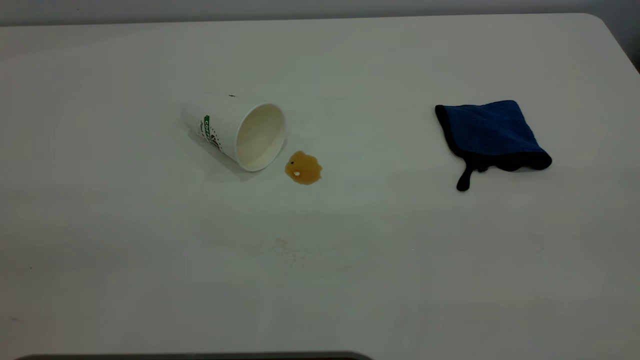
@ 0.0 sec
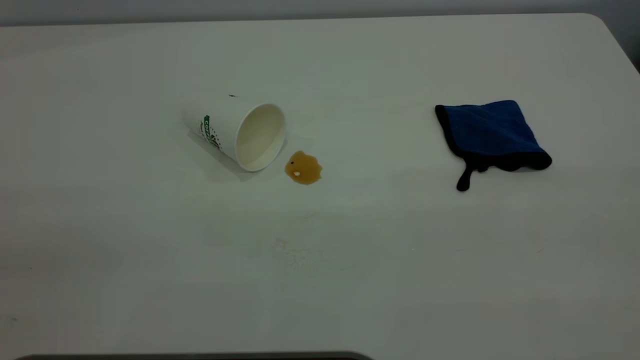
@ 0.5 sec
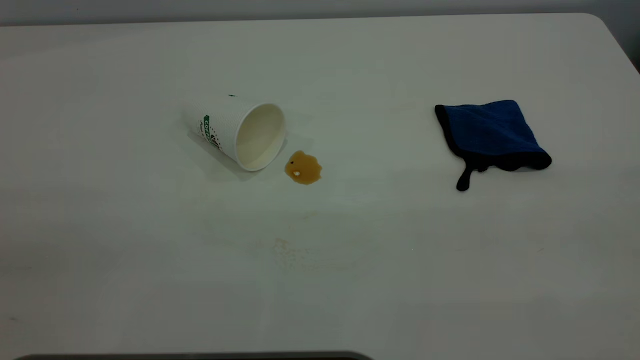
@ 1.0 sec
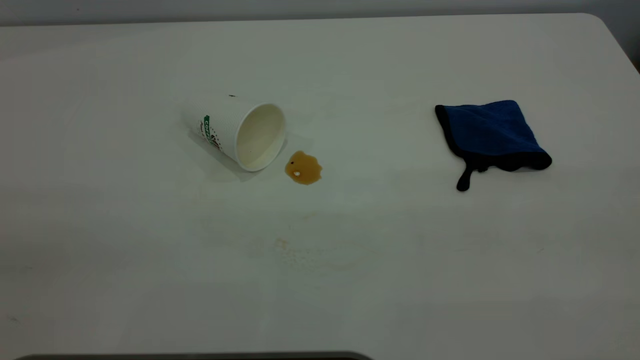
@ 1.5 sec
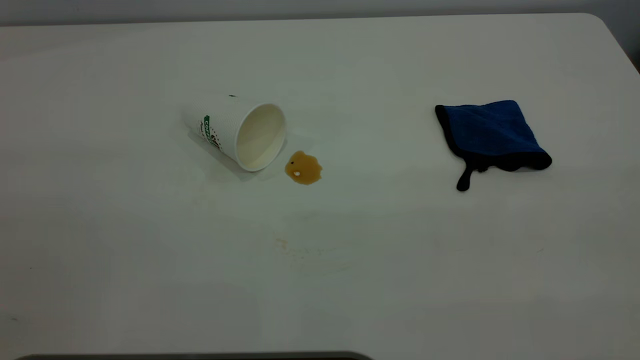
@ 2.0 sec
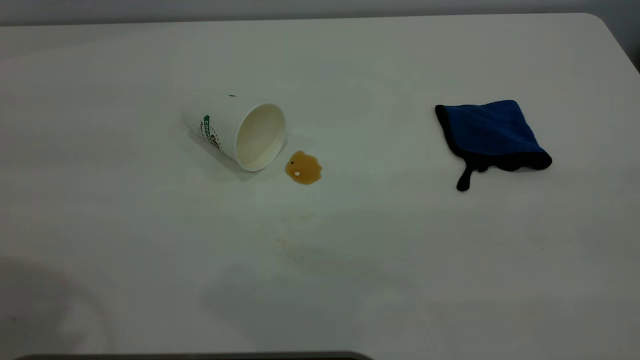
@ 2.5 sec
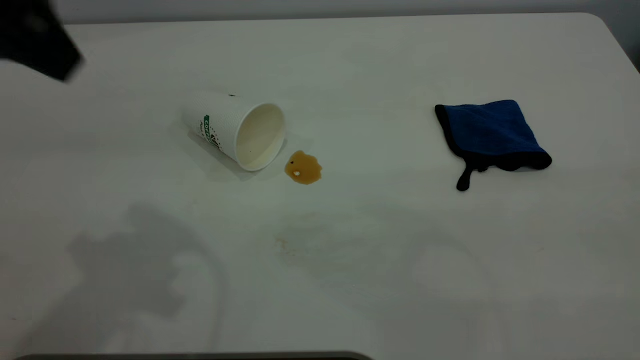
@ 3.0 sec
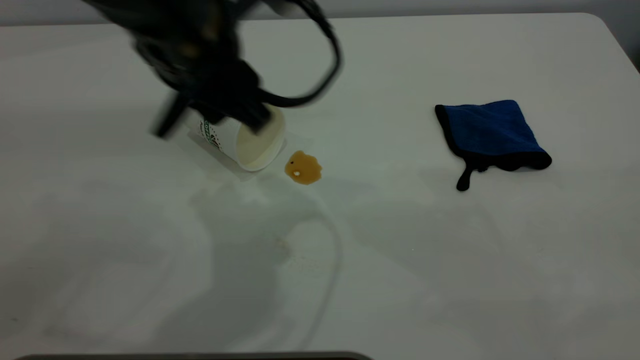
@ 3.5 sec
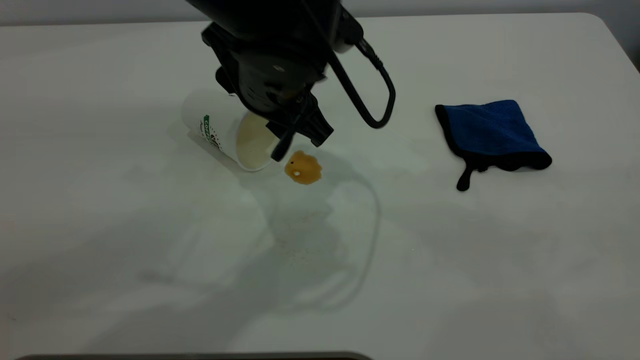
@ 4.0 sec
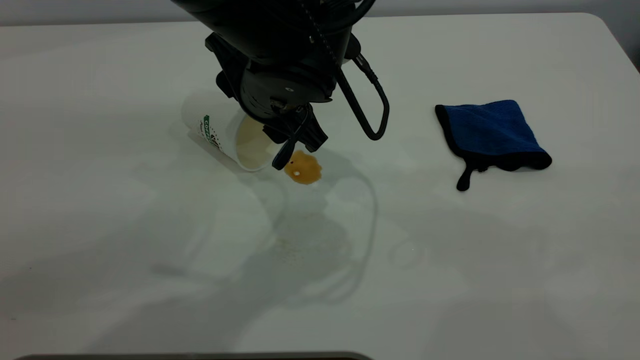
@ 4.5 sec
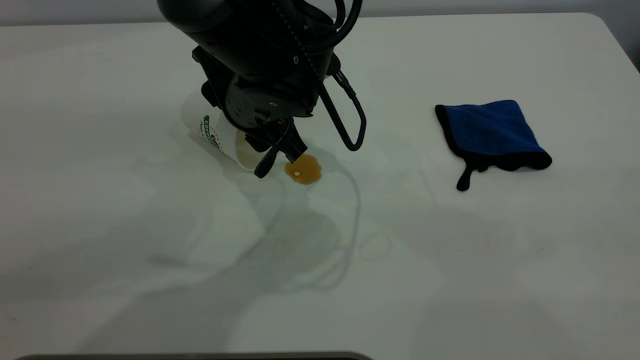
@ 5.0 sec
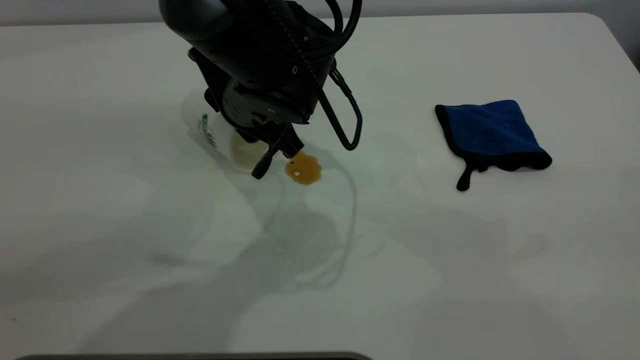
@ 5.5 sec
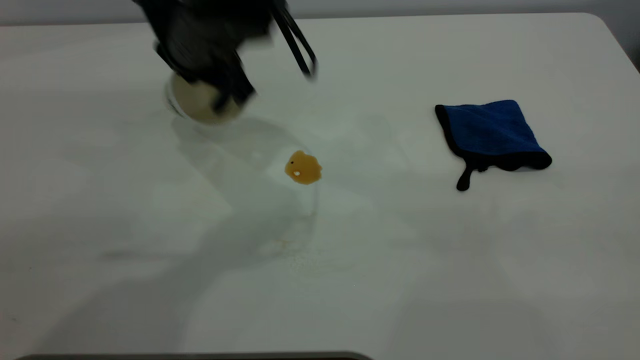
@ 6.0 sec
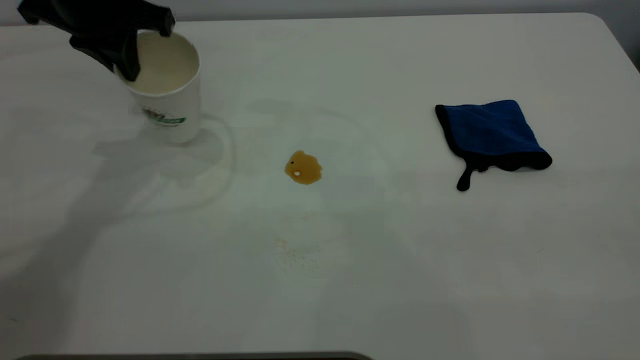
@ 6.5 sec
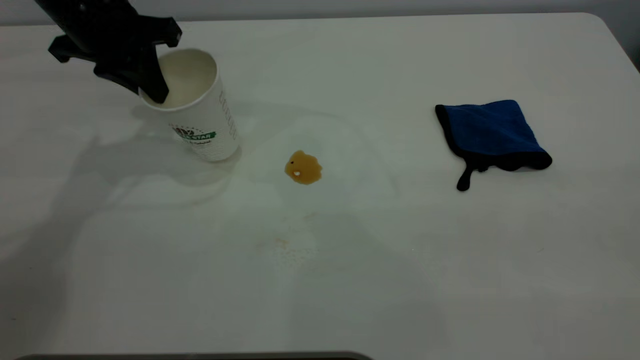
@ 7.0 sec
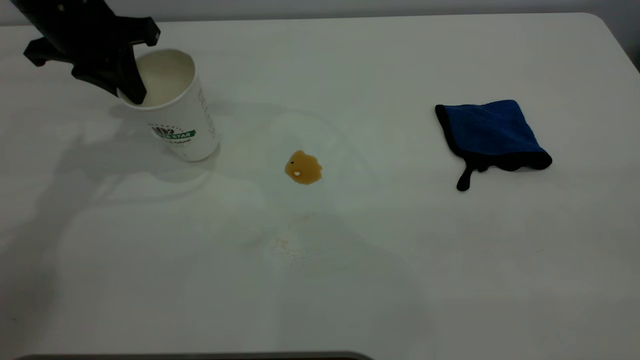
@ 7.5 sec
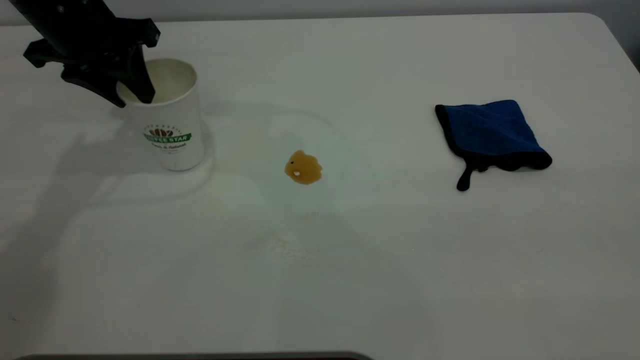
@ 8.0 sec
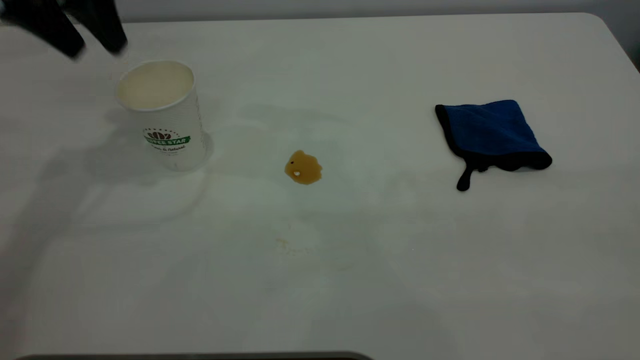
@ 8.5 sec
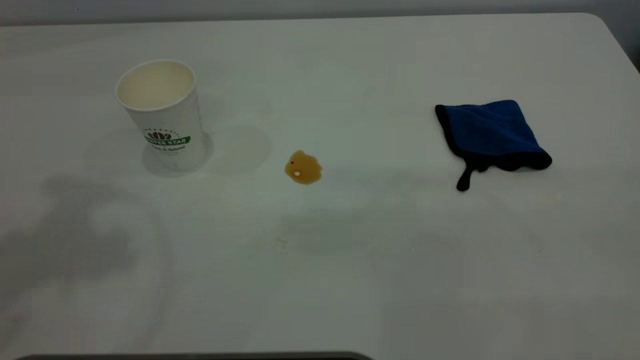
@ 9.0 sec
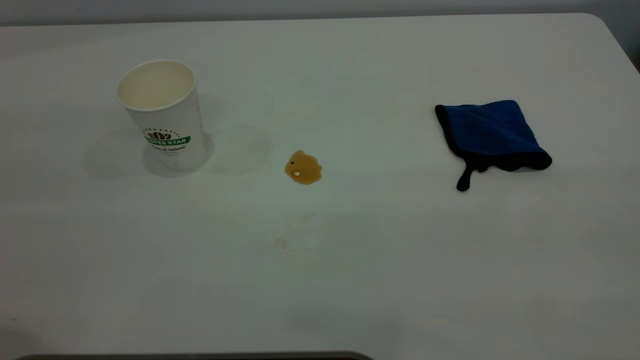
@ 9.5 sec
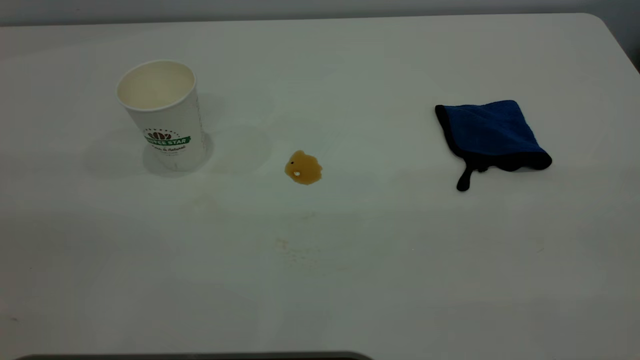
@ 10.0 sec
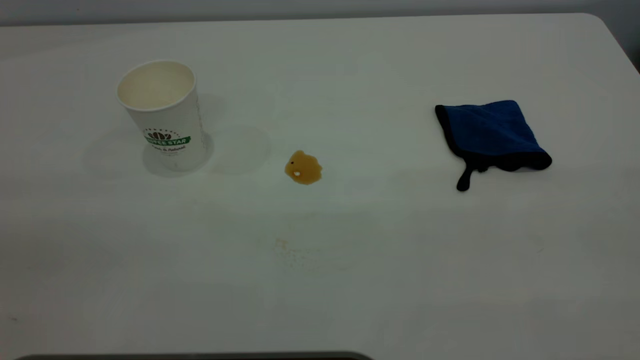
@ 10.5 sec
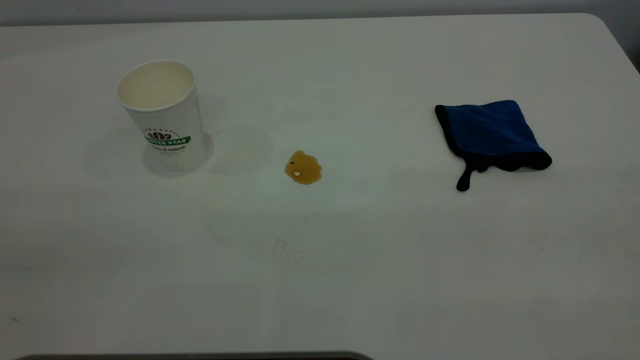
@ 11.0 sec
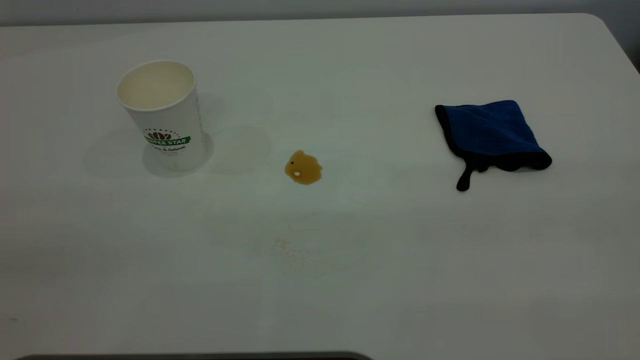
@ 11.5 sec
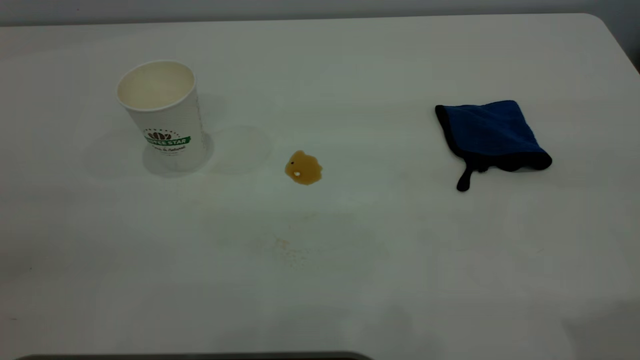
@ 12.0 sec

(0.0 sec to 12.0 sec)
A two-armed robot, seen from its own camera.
Task of the whole recording: the left gripper pick up the fallen cup and place it upright, the right gripper grasp the blue rag and wipe the tea stain on the table, the right gripper put the blue rag back in its original position.
Step, 0.0 sec - 8.0 sec: Stand the paper cup upright.
2.0 sec - 4.0 sec: The left gripper goes approximately 40 cm to the right, forward and downward.
4.0 sec - 6.0 sec: The left gripper shifts about 10 cm to the left and forward, and closes.
6.0 sec - 8.0 sec: The left gripper travels to the left by about 15 cm, and opens its fingers.
8.0 sec - 10.0 sec: The left gripper travels backward and upward by roughly 40 cm.

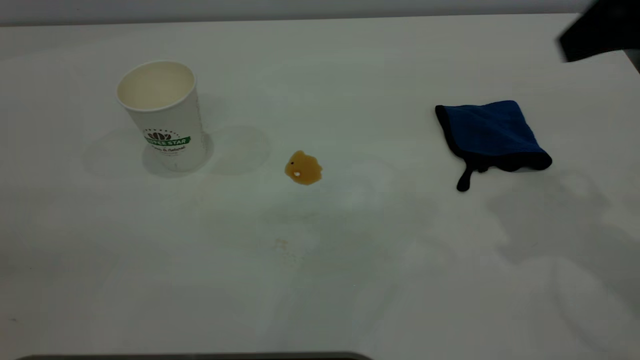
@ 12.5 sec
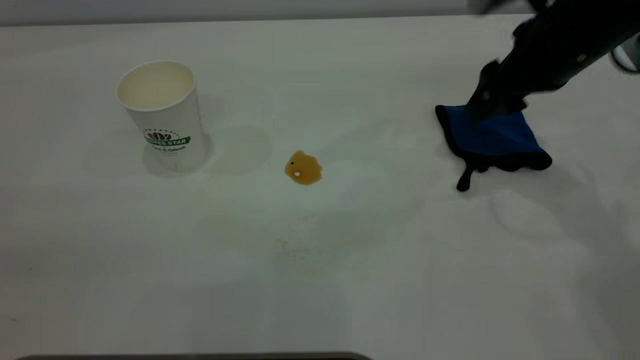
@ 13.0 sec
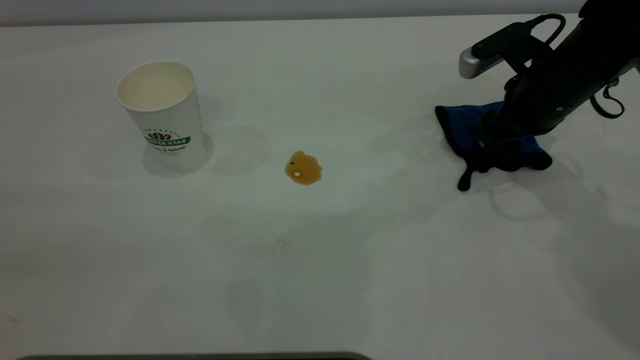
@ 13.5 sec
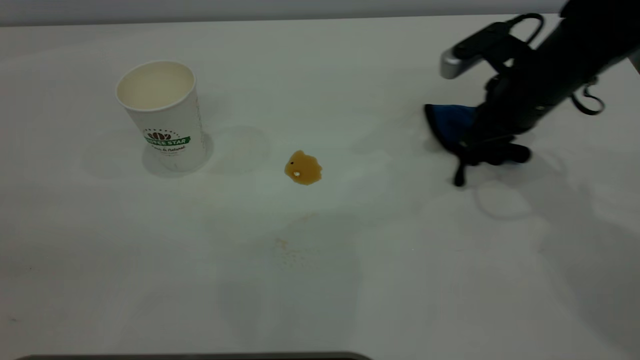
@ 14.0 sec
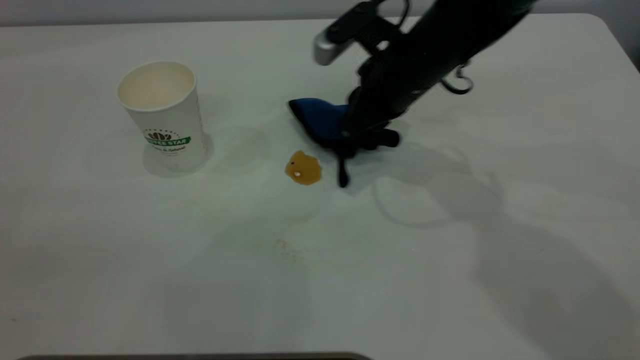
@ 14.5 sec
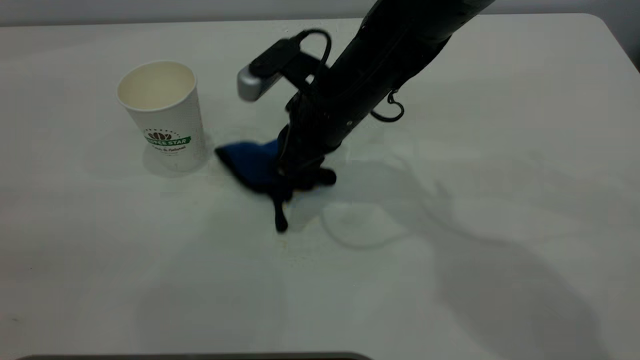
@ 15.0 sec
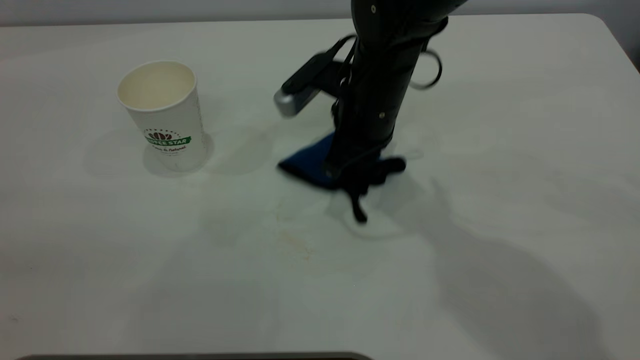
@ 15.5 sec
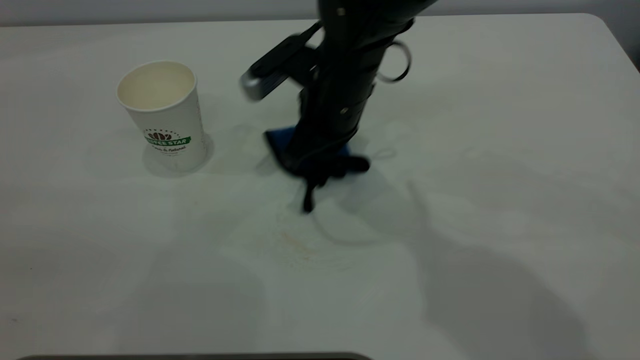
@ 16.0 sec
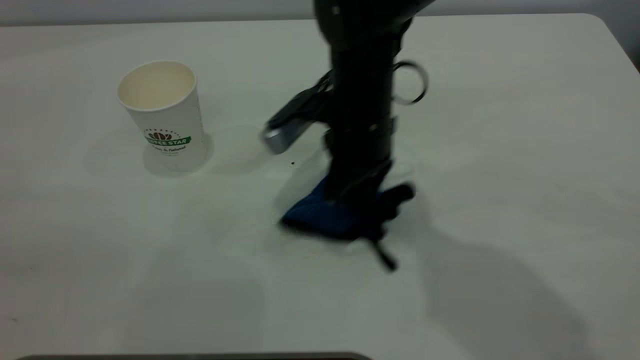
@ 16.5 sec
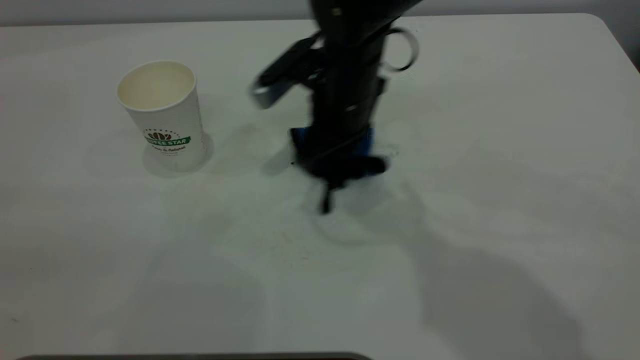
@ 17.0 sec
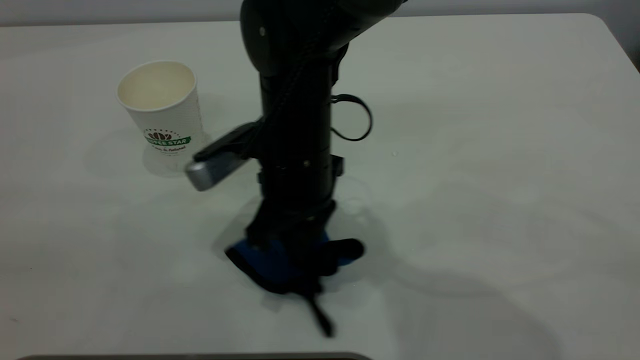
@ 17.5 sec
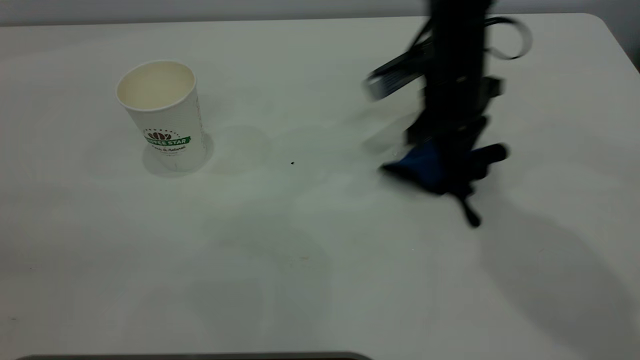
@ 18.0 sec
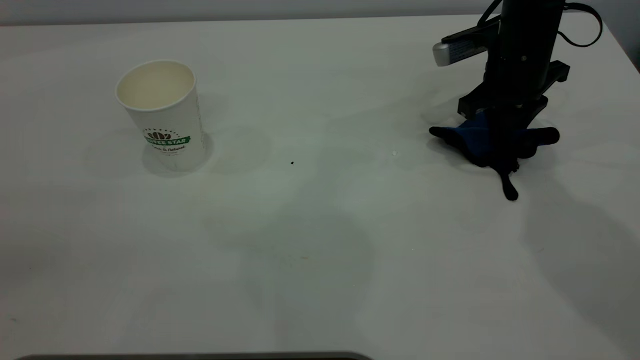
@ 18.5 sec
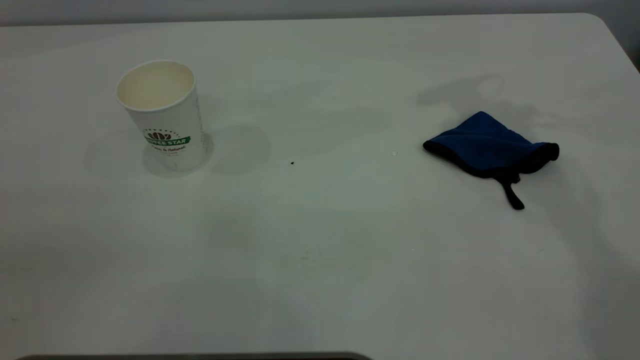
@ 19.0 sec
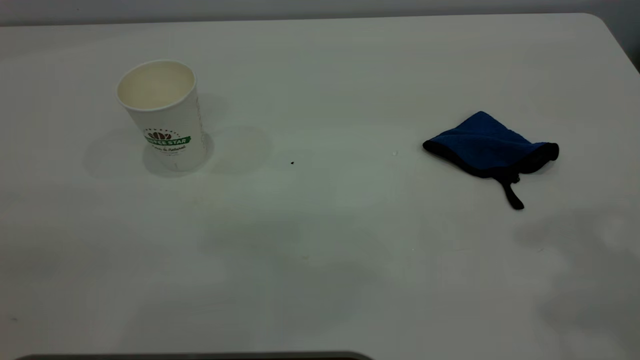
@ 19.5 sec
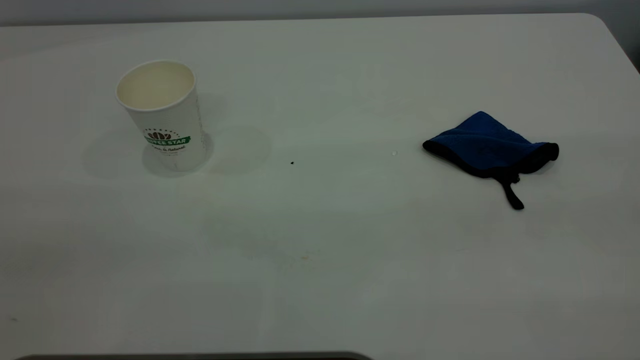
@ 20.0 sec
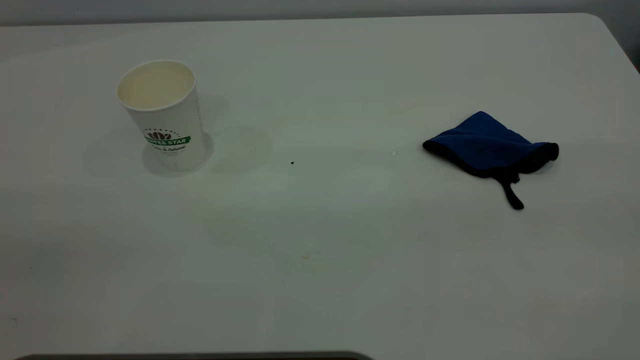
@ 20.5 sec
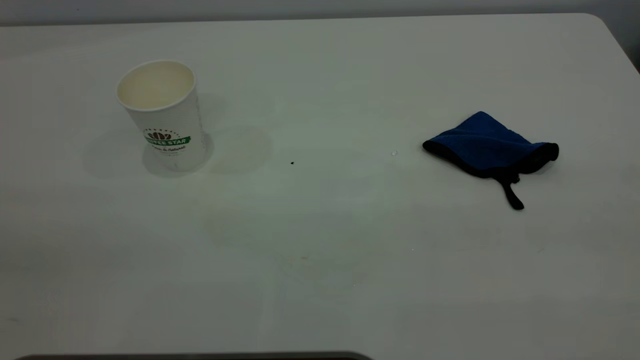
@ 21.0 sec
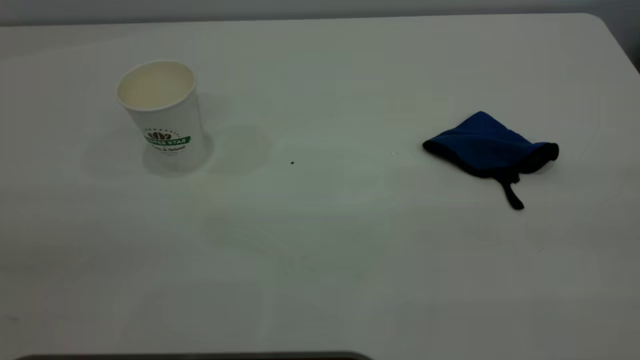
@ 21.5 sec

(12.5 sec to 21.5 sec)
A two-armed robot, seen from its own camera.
Task of the whole recording: the left gripper pick up the fallen cup and place it upright, the right gripper grasp the blue rag and wipe the tea stain on the table, the right gripper put the blue rag back in its original position.
Step, 12.5 sec - 18.5 sec: Wipe the stains off the table with a rag.
12.5 sec - 14.5 sec: The right gripper shifts some 25 cm to the left, downward and forward, and closes up.
14.5 sec - 17.0 sec: The right gripper goes left and right, about 10 cm each way, reversing 2 times.
17.0 sec - 19.5 sec: The right gripper is displaced upward, to the right and backward by some 40 cm, and opens.
